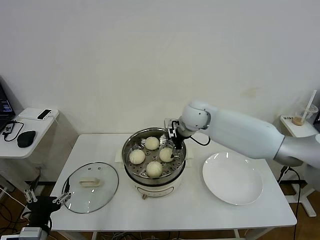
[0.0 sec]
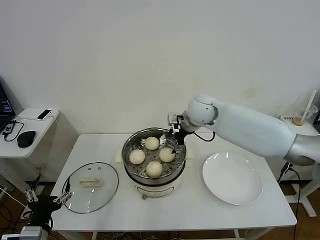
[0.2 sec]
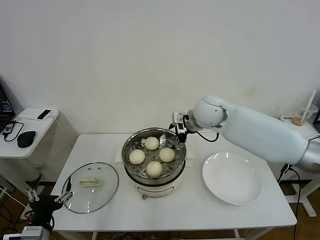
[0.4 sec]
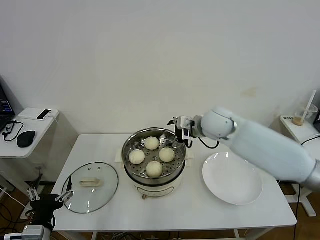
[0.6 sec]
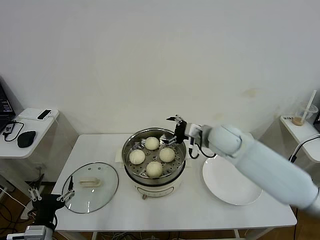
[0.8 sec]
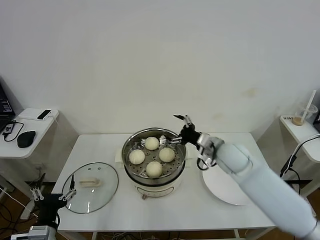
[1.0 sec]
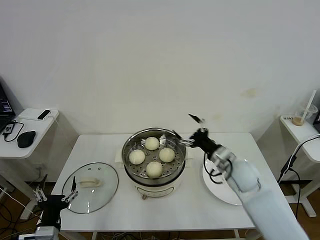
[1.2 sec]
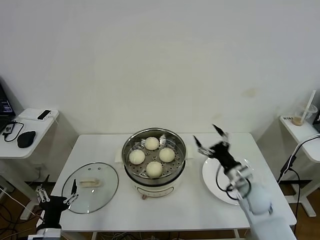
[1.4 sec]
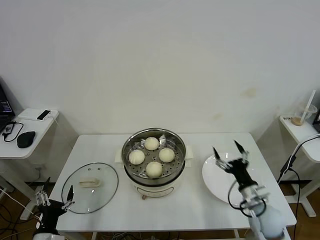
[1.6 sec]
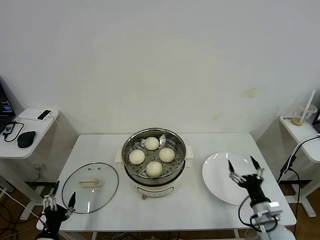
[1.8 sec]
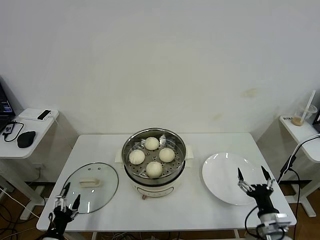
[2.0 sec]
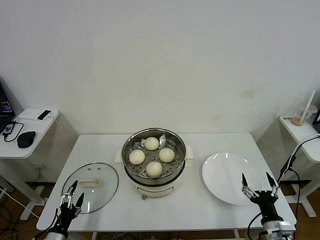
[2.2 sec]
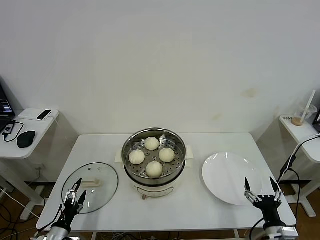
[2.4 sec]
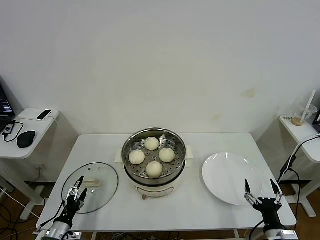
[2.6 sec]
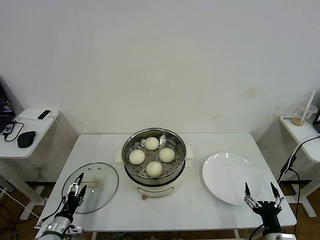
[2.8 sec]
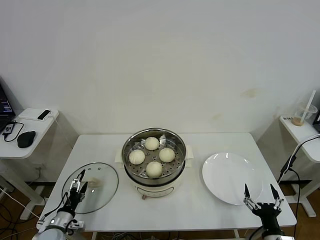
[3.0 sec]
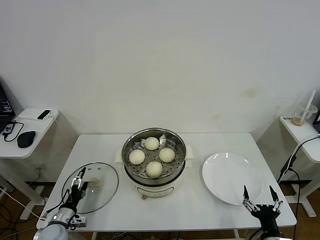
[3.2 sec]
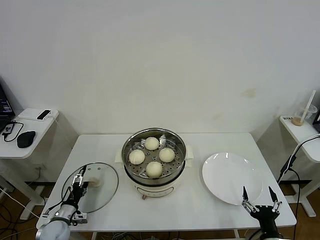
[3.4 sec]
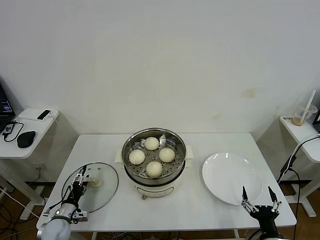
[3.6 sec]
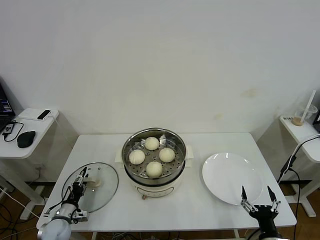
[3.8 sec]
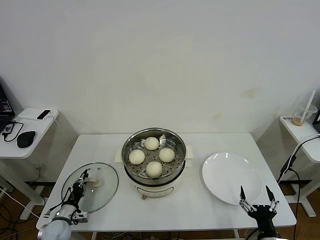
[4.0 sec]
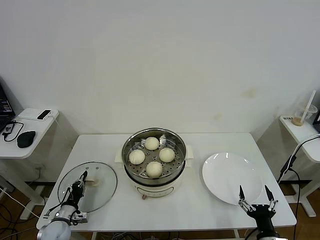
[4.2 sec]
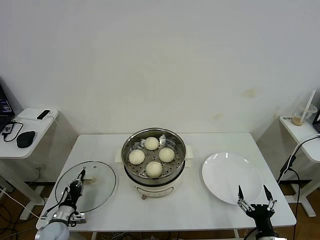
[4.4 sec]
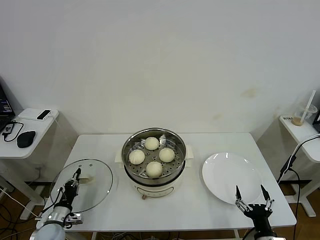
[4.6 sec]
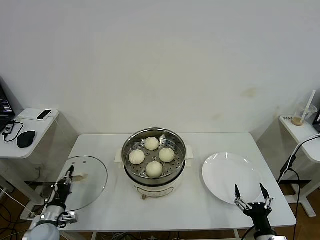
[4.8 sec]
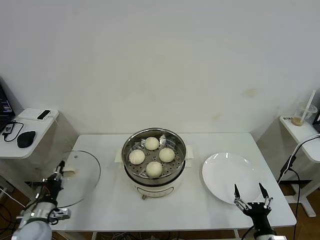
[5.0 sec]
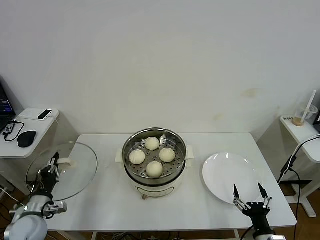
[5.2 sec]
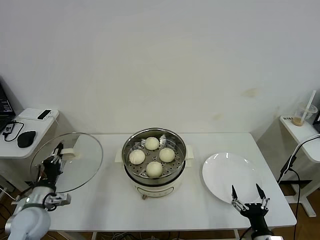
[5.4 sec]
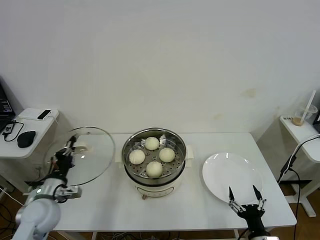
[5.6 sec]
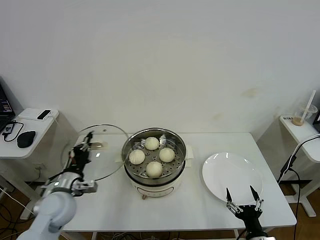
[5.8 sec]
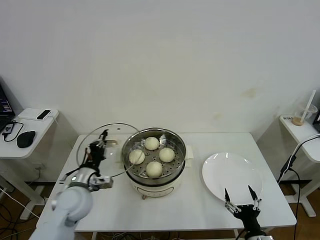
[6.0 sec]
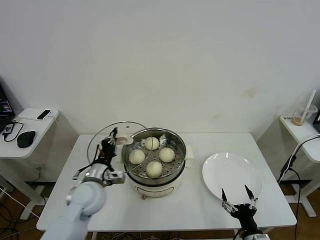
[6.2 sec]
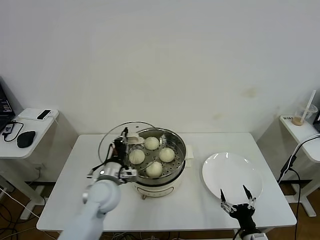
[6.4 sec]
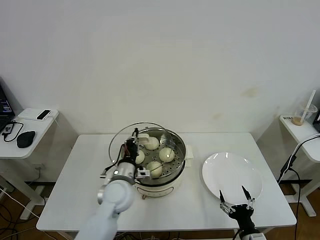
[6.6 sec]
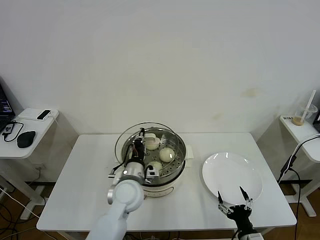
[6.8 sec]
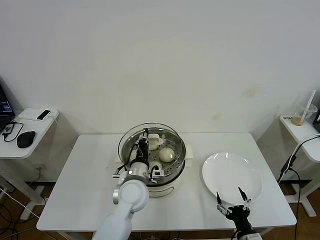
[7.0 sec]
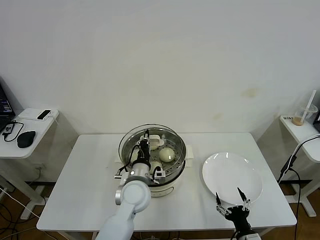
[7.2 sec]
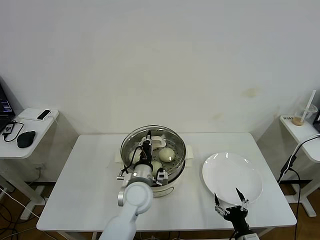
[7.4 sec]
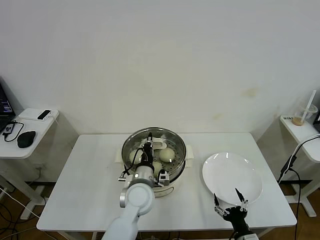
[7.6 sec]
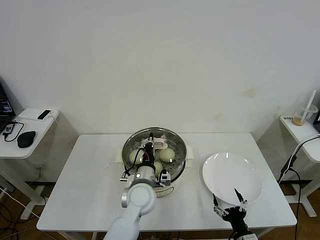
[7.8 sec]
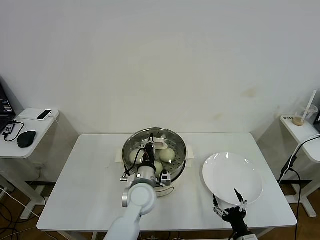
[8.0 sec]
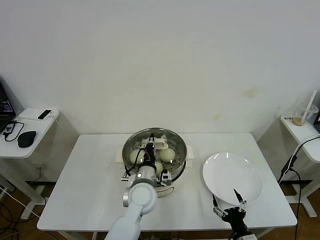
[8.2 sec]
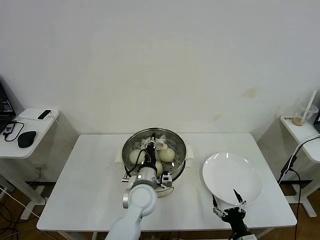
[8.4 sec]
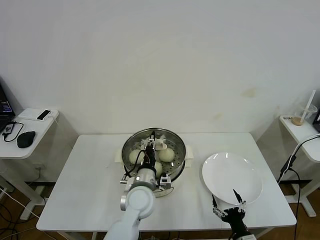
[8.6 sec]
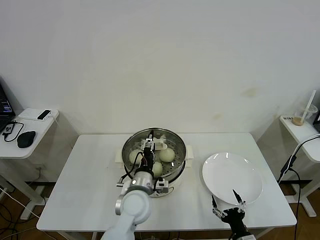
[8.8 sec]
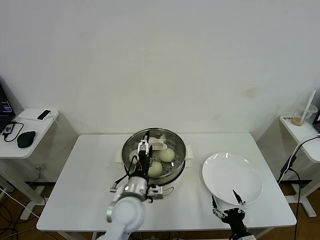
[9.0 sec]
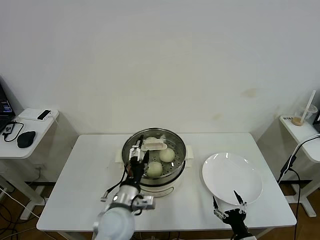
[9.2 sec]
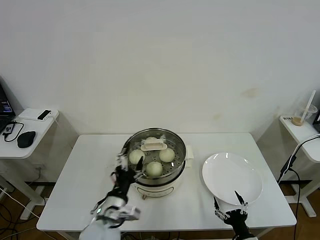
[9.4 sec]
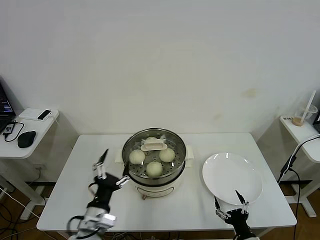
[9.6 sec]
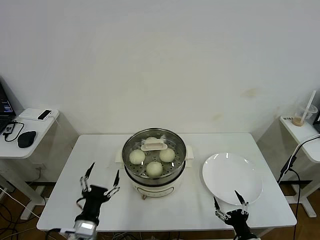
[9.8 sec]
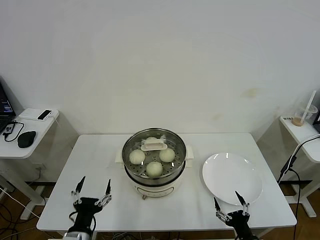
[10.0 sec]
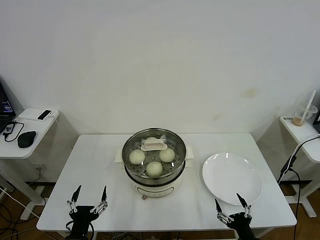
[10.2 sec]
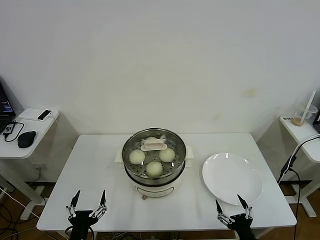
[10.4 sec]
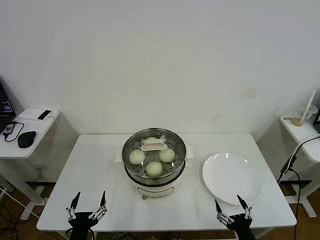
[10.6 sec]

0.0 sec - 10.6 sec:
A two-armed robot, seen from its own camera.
Task of the whole recording: take steamed baozi put them in steamer then cover it.
Step, 0.4 sec - 4.4 sec: Grasp the pot lid with left gripper.
Step, 4.6 sec - 9.0 sec: Place the pot lid on the steamer with left gripper.
0.0 sec - 1.6 sec: The left gripper moves downward, roughly 10 cm. The right gripper travels backward, to the right and downward by roughly 40 cm.
1.6 sec - 3.0 sec: The left gripper travels downward and forward by approximately 10 cm. Meanwhile the right gripper goes about 15 cm backward.
3.0 sec - 4.6 sec: The left gripper closes its fingers.
4.6 sec - 6.0 sec: The left gripper is displaced upward and to the right by some 20 cm.
6.0 sec - 7.6 sec: The left gripper travels to the right by about 20 cm.
7.6 sec - 9.0 sec: The left gripper opens up.
9.0 sec - 10.6 sec: The right gripper changes place by roughly 5 cm. The left gripper goes approximately 25 cm backward and to the left.

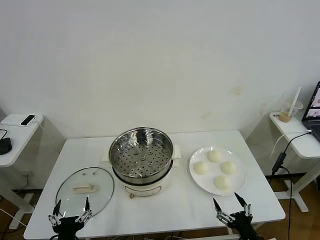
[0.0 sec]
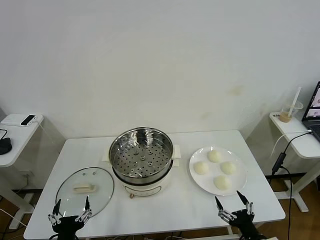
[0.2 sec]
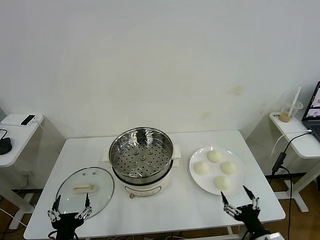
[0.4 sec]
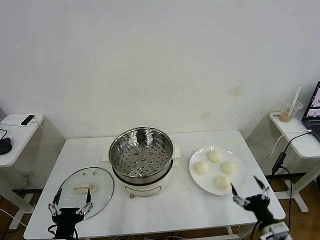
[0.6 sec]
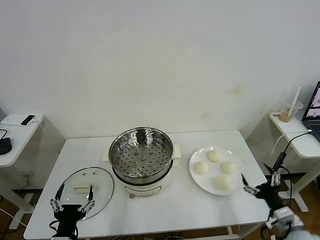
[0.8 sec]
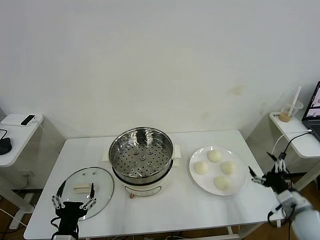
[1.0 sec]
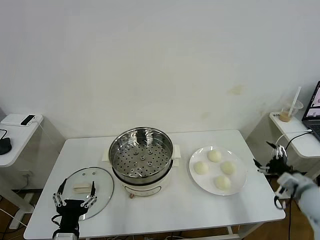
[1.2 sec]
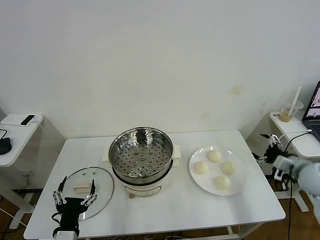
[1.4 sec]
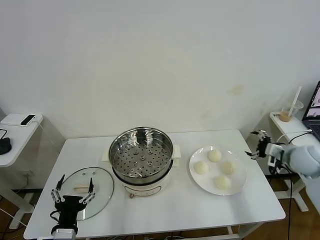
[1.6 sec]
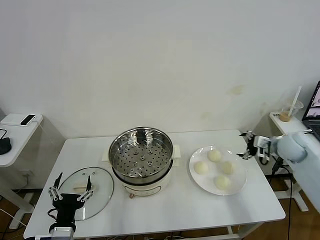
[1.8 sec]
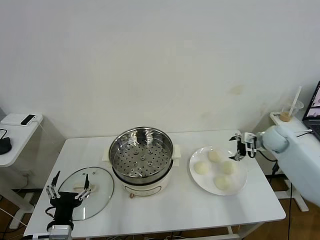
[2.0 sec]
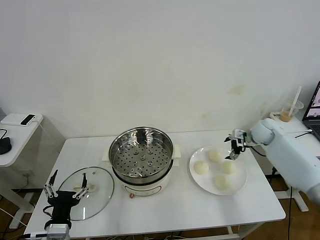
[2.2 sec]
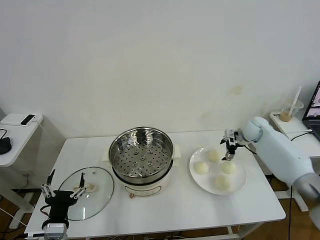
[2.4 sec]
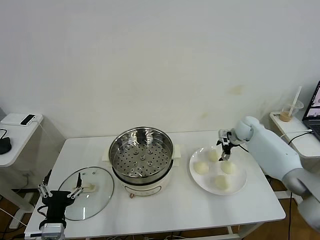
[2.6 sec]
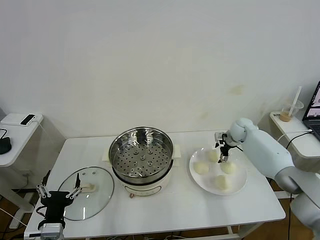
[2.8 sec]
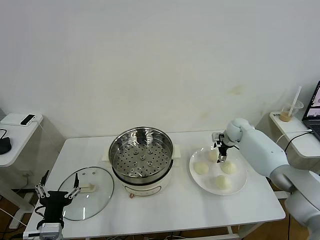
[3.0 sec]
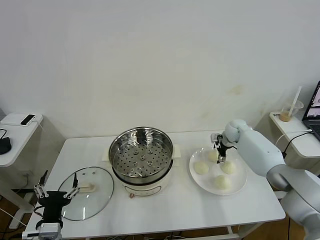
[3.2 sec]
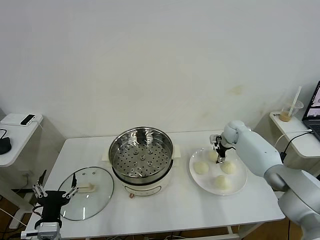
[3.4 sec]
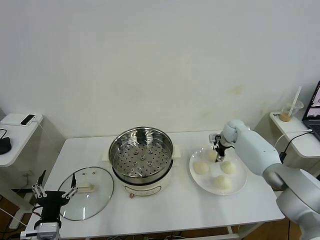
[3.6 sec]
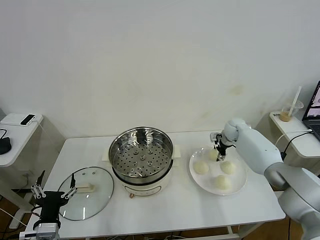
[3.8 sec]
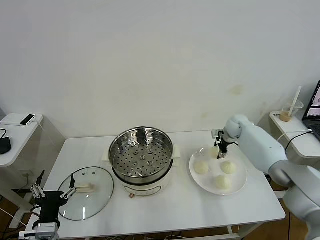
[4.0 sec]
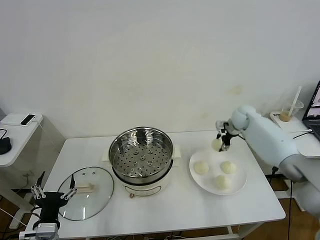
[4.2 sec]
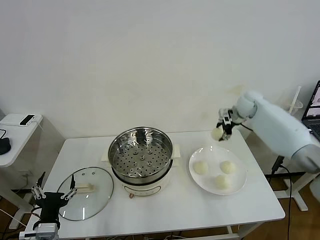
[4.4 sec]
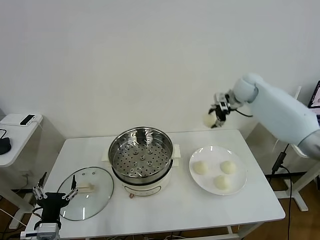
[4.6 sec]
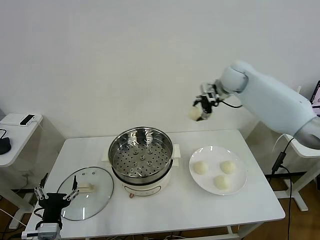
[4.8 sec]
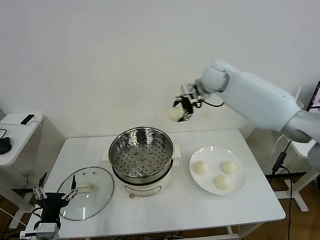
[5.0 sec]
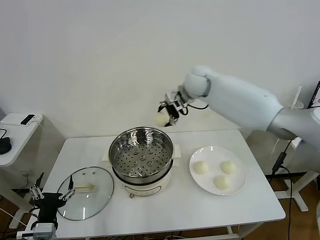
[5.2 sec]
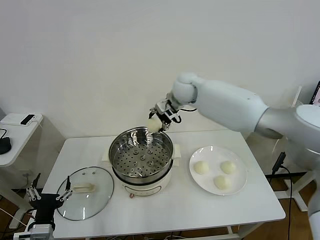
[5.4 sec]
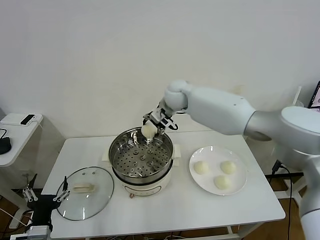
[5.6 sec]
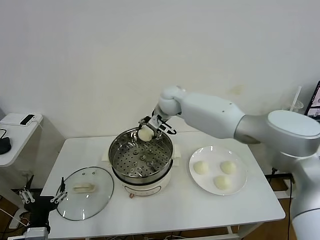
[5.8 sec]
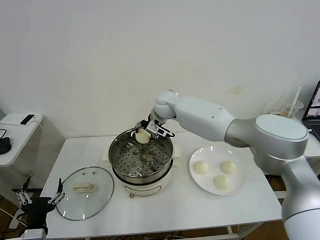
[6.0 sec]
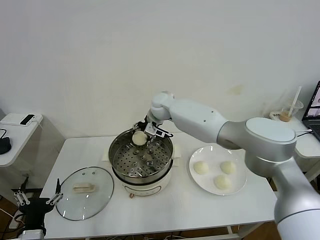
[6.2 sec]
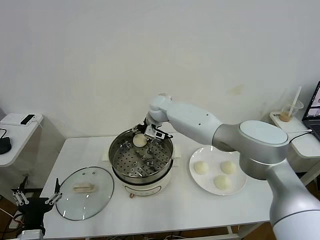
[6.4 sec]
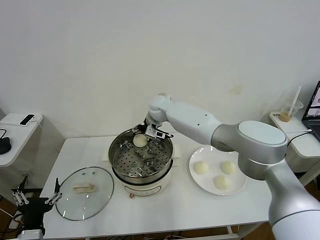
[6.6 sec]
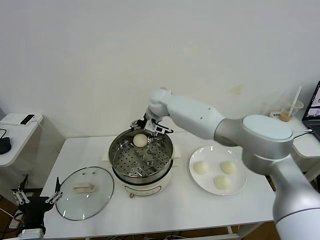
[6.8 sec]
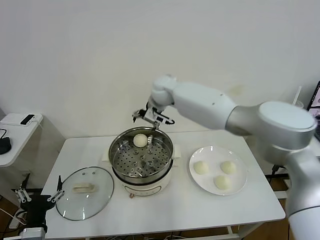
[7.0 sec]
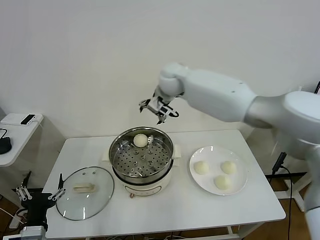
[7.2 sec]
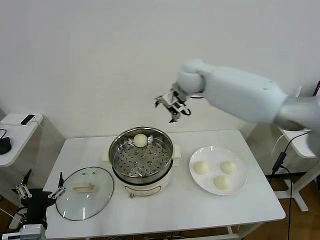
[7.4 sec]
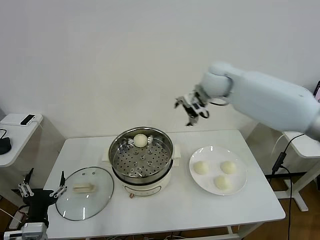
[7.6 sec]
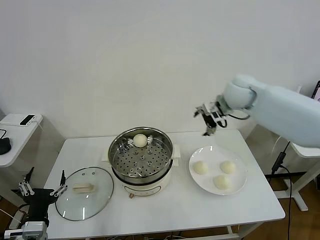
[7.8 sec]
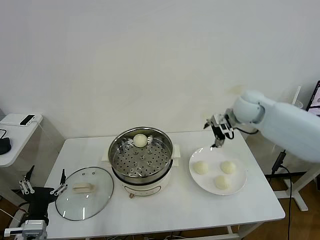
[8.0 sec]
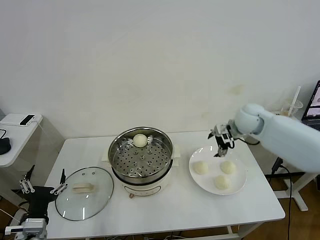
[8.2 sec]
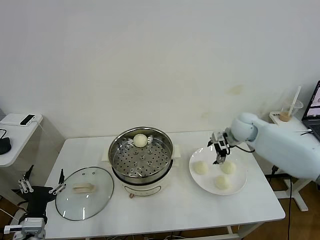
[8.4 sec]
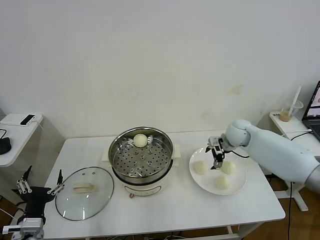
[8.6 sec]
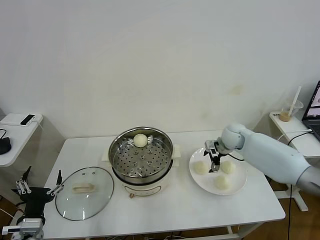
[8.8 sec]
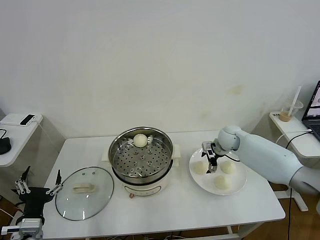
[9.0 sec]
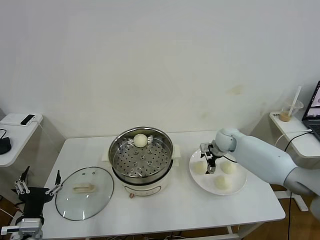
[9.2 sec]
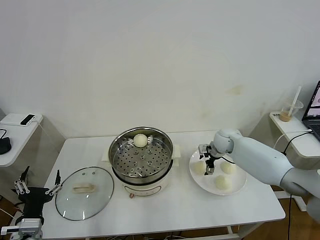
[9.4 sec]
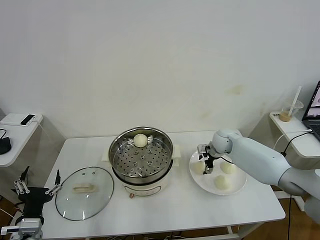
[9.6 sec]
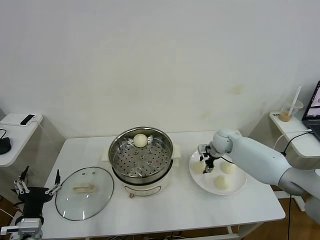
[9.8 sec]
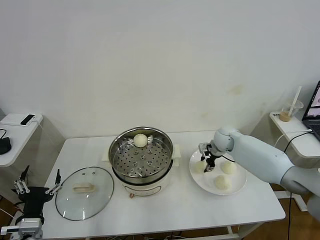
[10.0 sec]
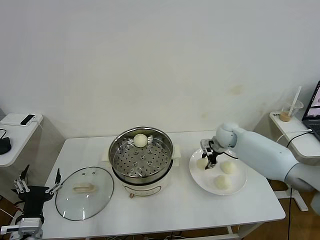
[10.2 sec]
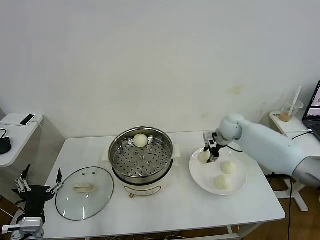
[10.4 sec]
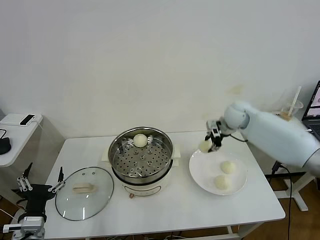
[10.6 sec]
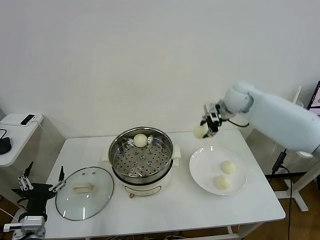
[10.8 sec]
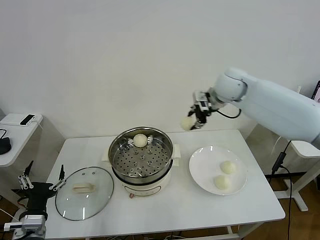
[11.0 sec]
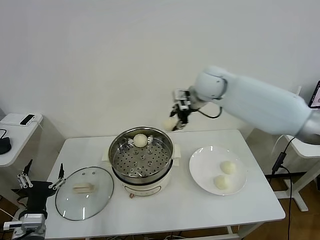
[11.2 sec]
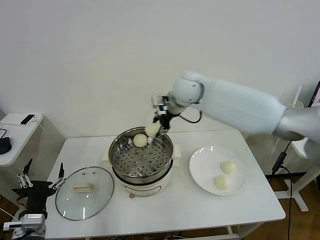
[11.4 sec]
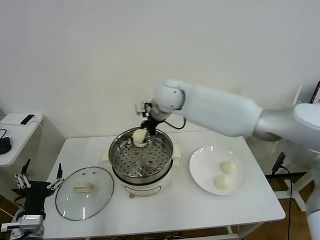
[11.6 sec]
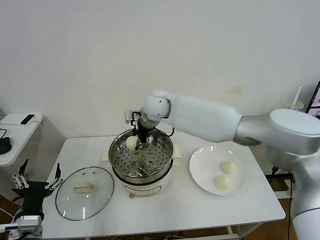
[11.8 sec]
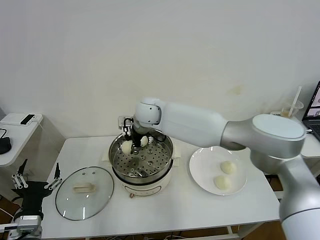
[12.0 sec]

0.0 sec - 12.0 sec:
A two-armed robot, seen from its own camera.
Task of the whole recording: take steamed baozi put them in steamer then cover it.
Step, 0.0 sec - 3.6 sec: Grasp the baozi in the plate with right gripper.
Step, 3.8 sec - 6.6 sec: Place the baozi on the steamer with right gripper.
Step, 6.8 sec - 9.8 sec: Grasp the baozi in the plate with right gripper.
1.6 sec - 3.0 sec: The right gripper is displaced forward, to the left and downward by roughly 25 cm.
3.0 sec - 4.4 sec: The right gripper goes roughly 15 cm upward, and closes its fingers.
4.4 sec - 6.0 sec: The right gripper shifts about 30 cm to the left.
6.0 sec - 7.6 sec: The right gripper shifts some 20 cm to the right and upward, and opens up.
7.6 sec - 9.0 sec: The right gripper travels downward by approximately 25 cm.
9.0 sec - 10.4 sec: The right gripper moves upward, about 5 cm, and closes.
10.4 sec - 12.0 sec: The right gripper heads to the left, covering roughly 30 cm.
